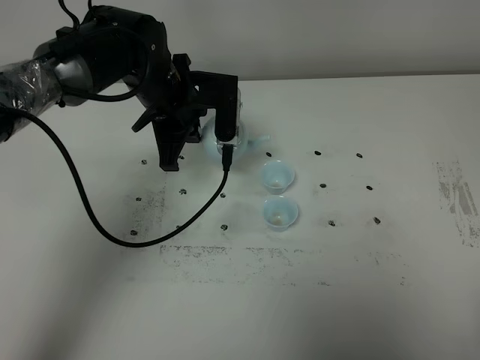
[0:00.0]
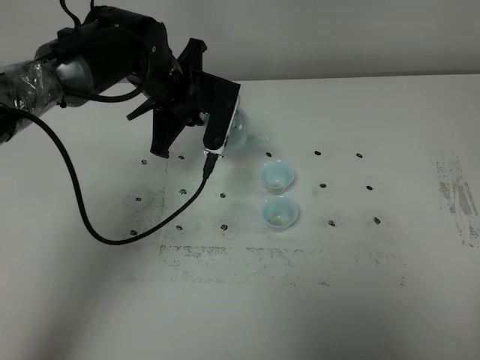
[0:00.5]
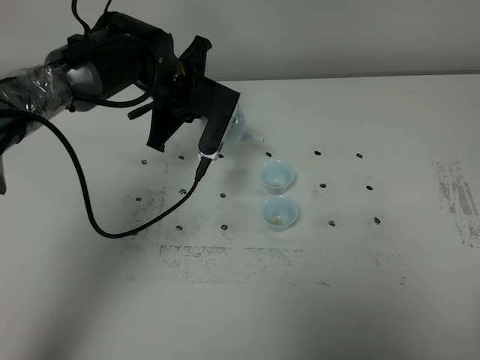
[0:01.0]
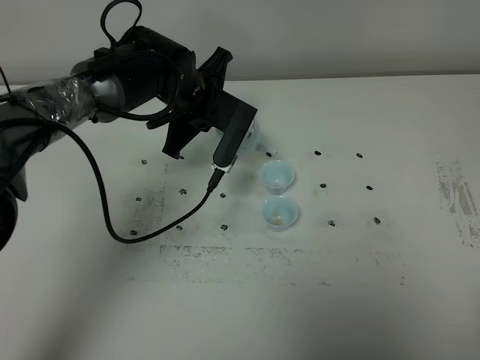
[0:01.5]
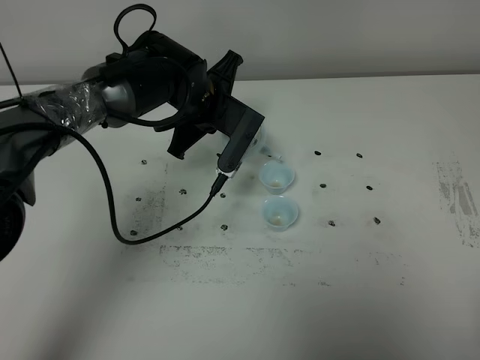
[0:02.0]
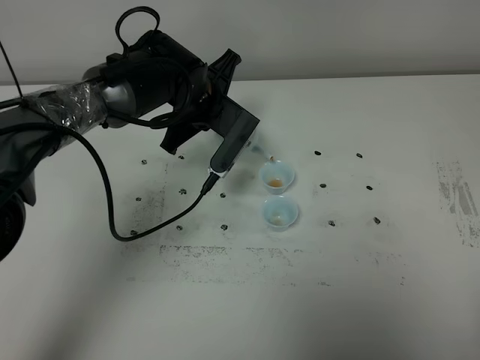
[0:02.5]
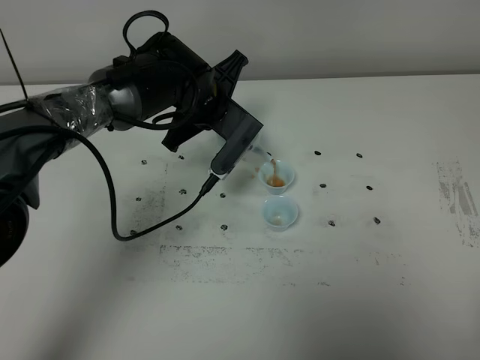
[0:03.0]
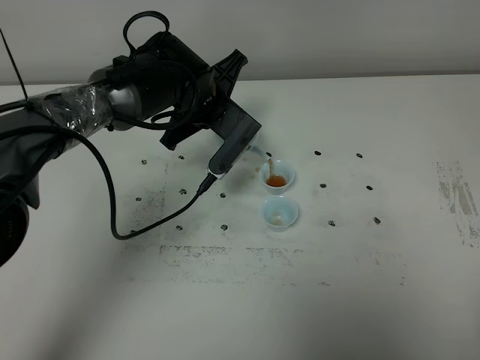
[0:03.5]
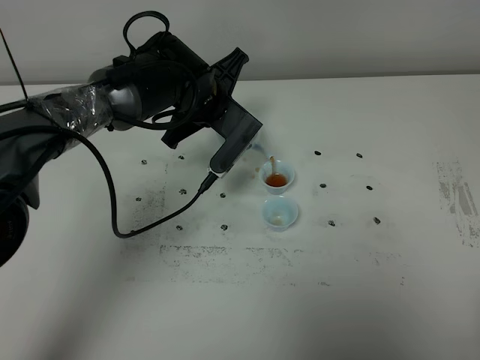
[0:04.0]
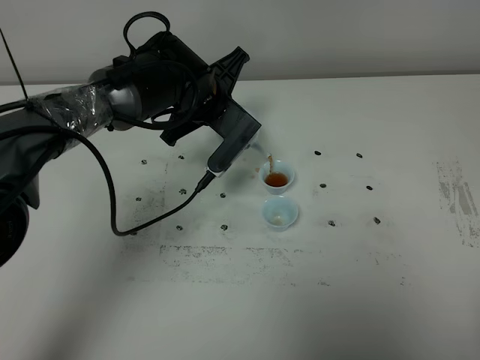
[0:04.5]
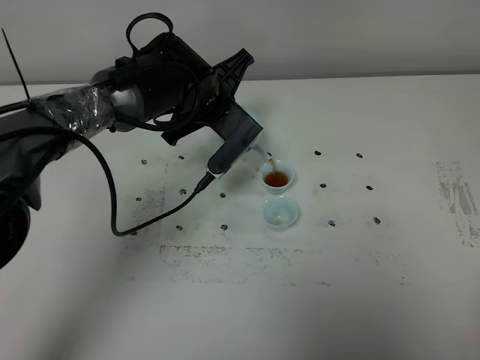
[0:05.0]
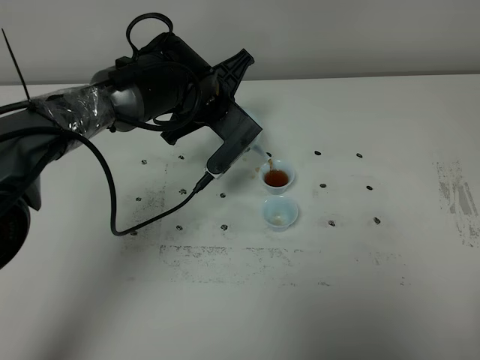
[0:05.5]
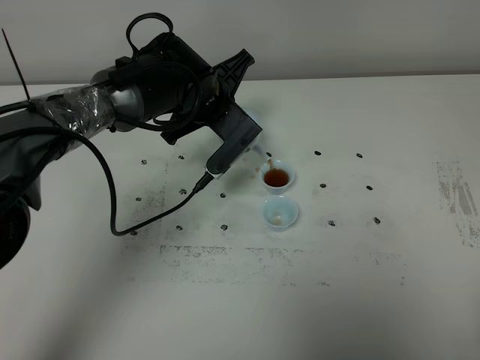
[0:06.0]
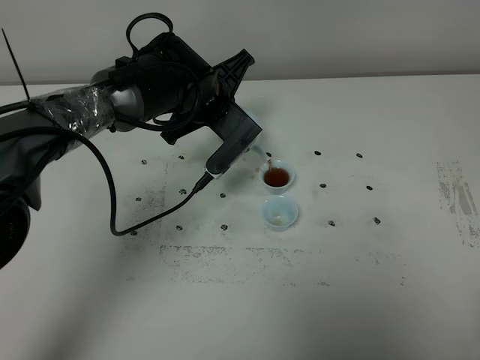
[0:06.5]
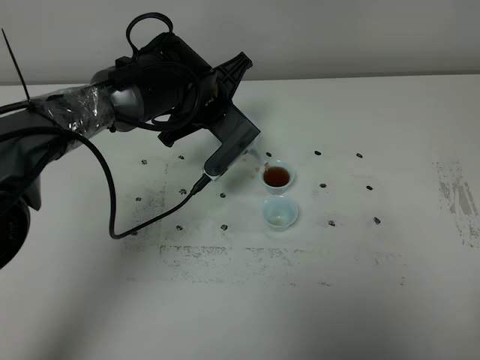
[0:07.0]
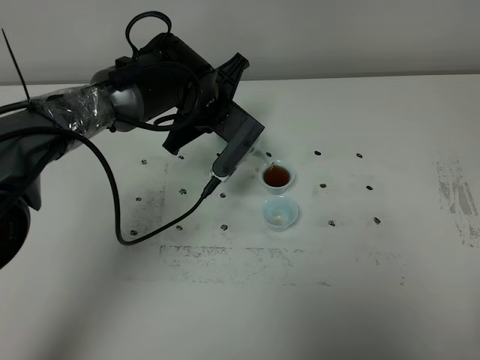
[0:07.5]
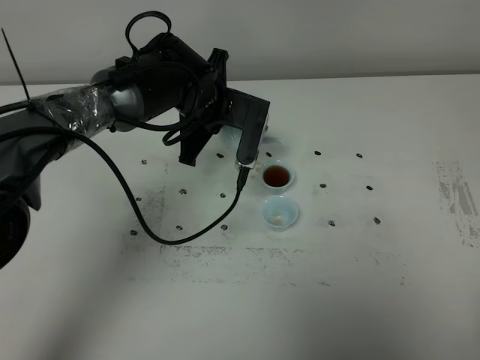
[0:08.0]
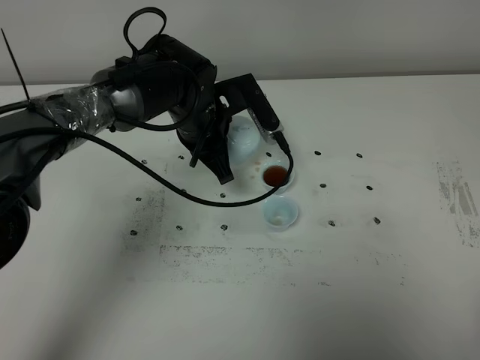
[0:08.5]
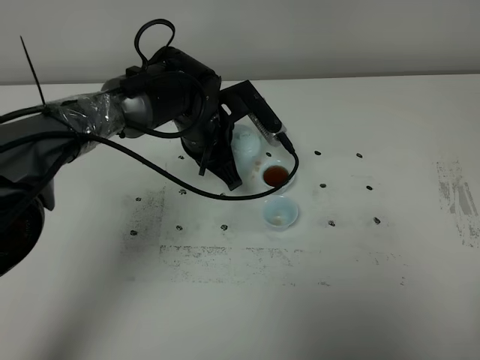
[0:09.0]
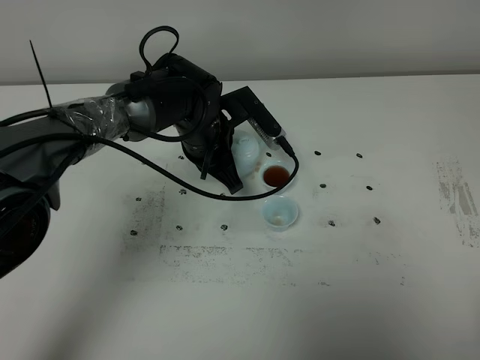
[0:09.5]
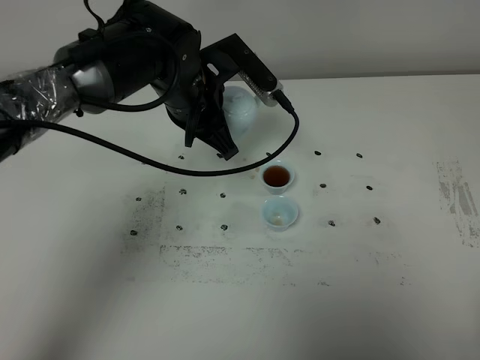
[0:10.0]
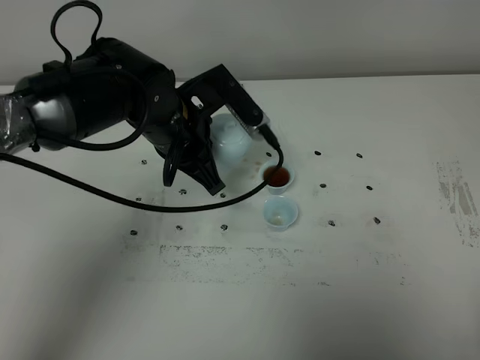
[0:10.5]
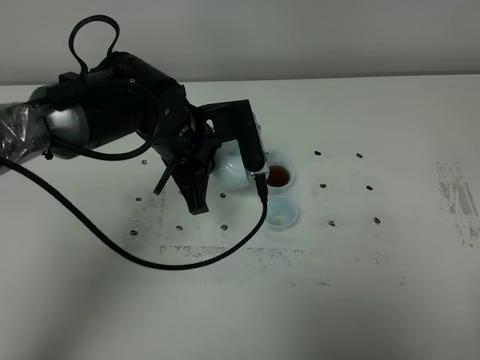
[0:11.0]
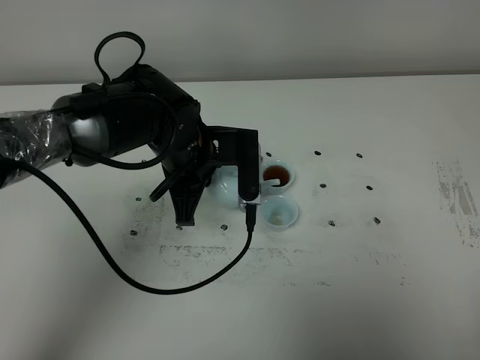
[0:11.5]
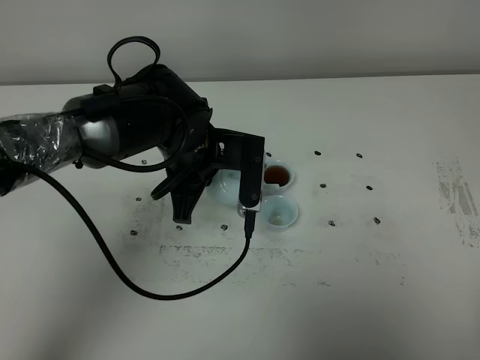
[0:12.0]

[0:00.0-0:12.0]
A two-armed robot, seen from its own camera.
Task of the whole recording: grasp the blue porcelain teapot and pour the tea into the two blue porcelain teacups one by one, put the blue porcelain teapot back in its original place.
0:02.0 to 0:06.0: The grippers make only small movements.
0:08.0 to 0:10.0: The left gripper shifts by some 5 cm.
0:10.0 to 0:12.0: The left gripper ends up some 5 cm from where it was.

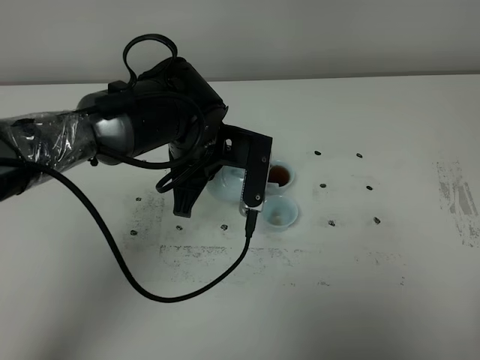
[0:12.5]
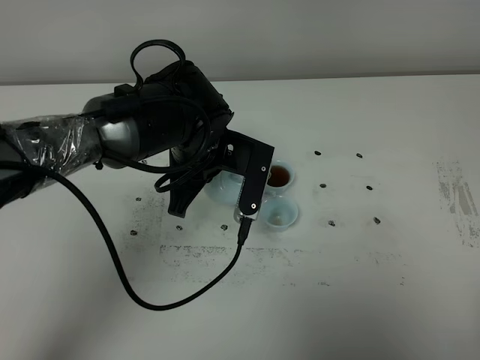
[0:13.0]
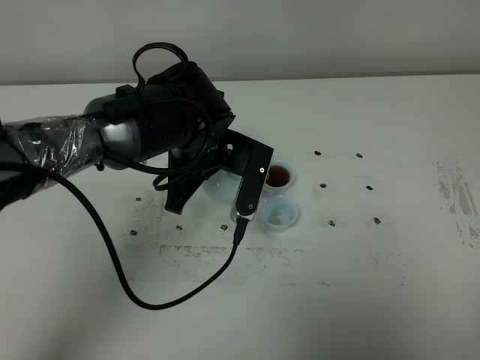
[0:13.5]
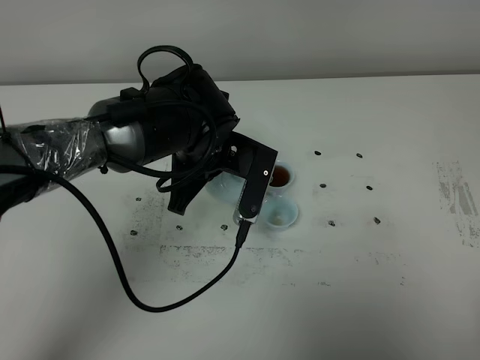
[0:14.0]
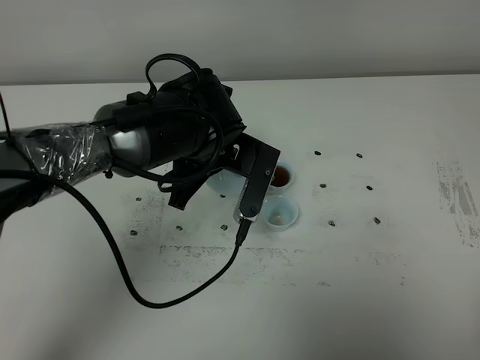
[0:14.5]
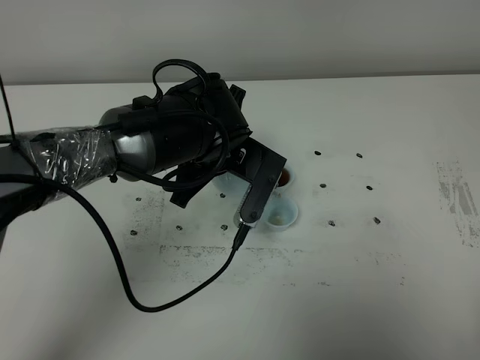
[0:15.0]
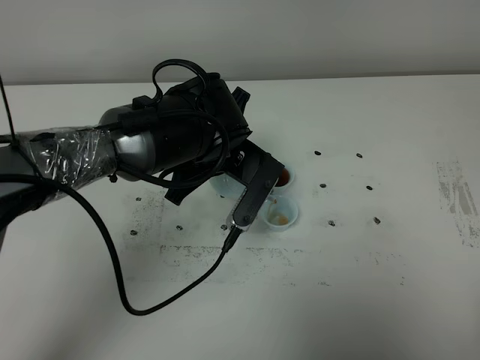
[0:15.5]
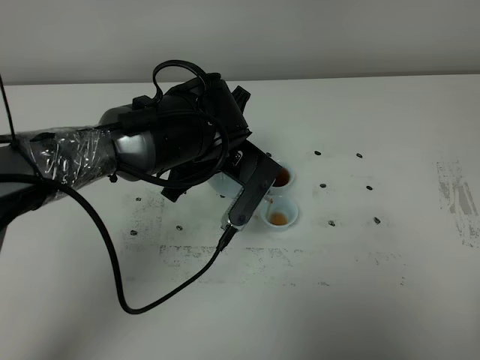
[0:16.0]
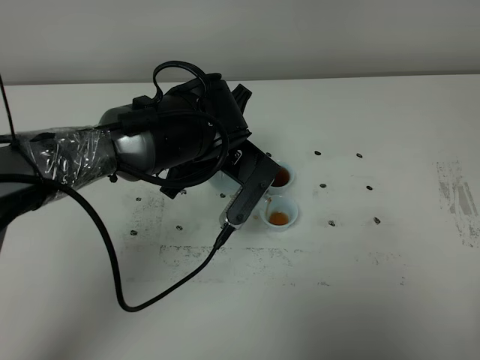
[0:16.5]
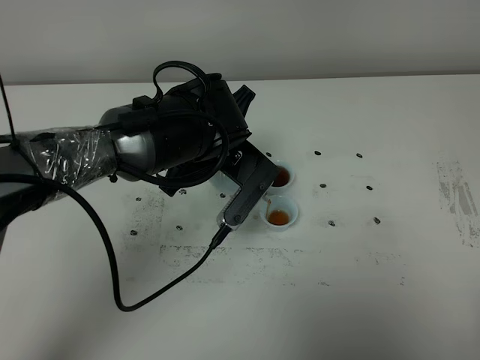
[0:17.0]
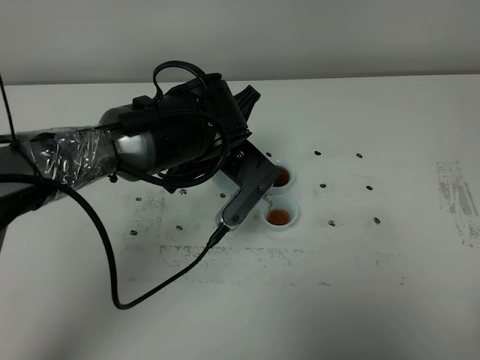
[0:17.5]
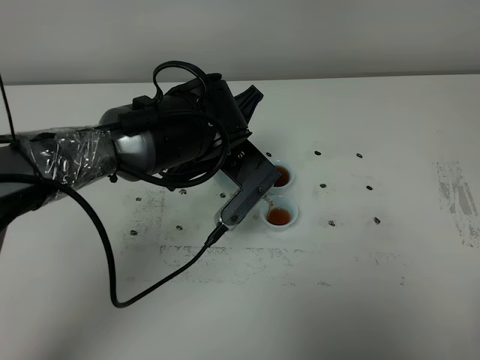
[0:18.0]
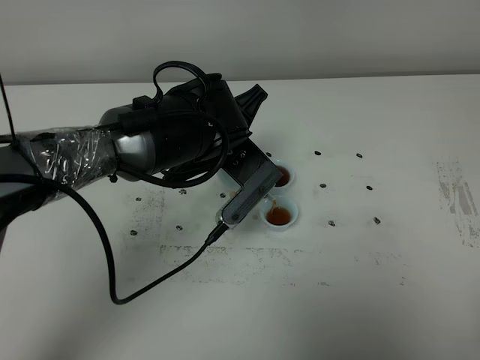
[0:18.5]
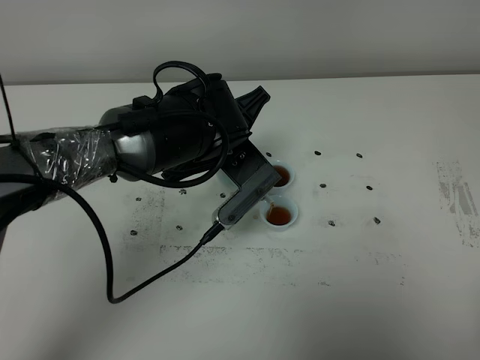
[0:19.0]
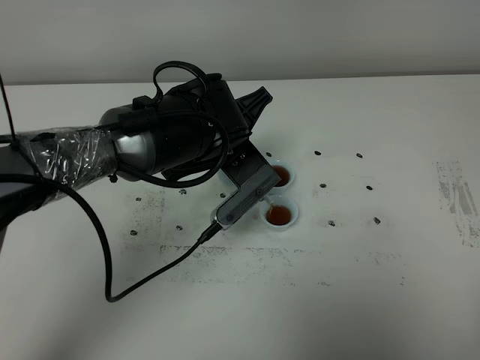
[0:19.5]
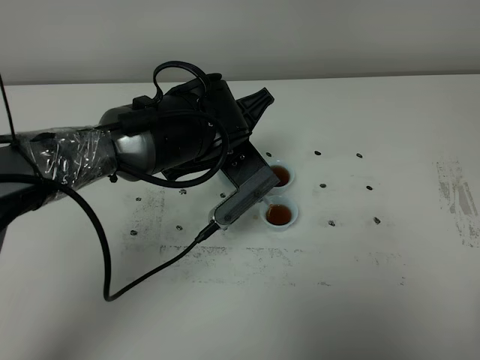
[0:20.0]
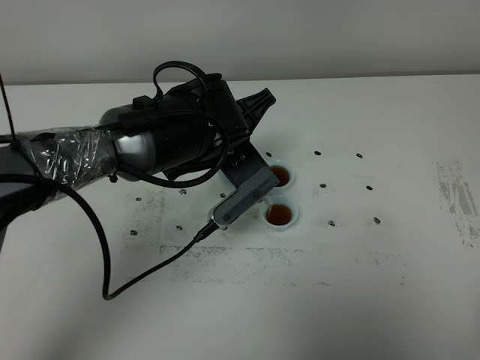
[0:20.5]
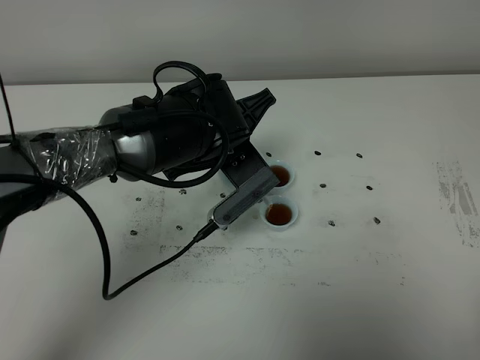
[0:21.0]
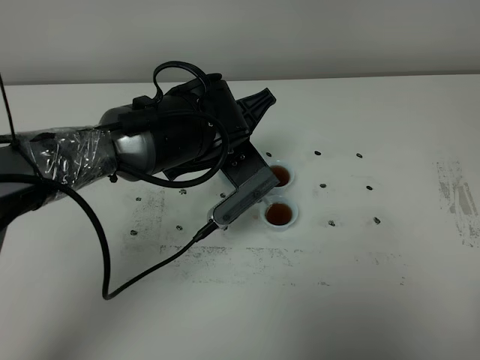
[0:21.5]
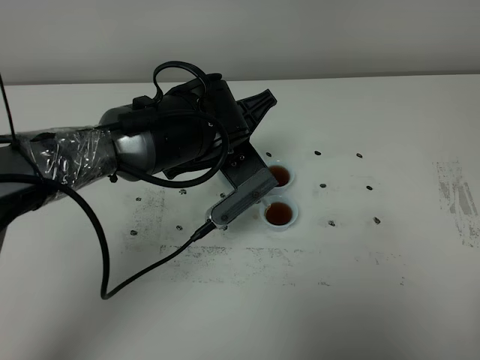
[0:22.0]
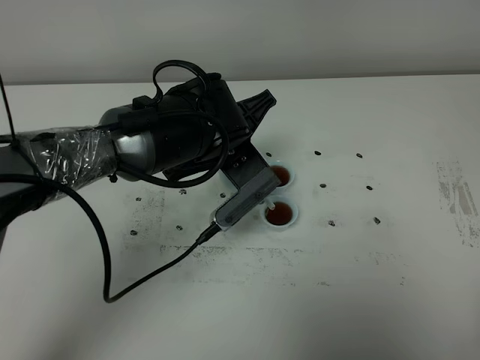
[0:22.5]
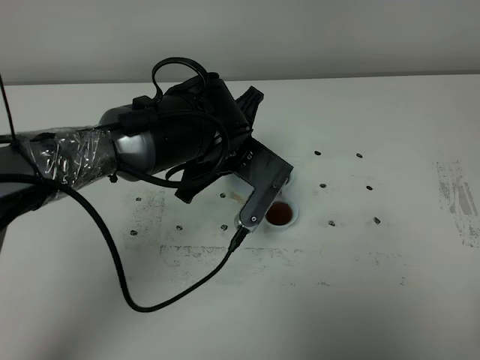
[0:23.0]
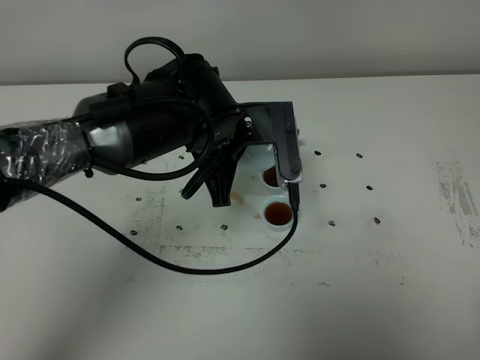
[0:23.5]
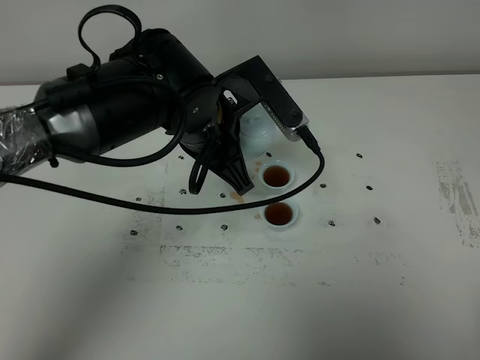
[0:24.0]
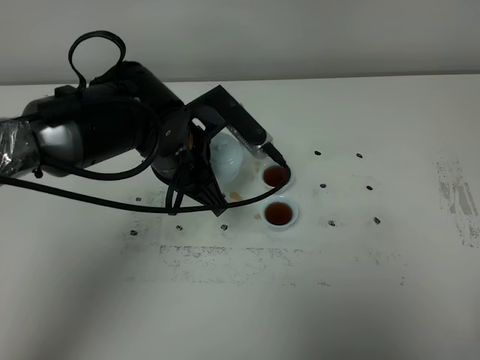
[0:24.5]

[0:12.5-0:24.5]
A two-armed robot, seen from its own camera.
Task of the whole recording: grasp the blue porcelain teapot and pour the tea into the two blue porcelain teacups one by one, put the blue porcelain teapot back in its original place.
Step, 0:12.5 to 0:23.0: Pour tea into the teacup with the left gripper.
0:12.5 to 0:14.5: The grippers stay close to where they were, moving slightly.
0:14.5 to 0:16.5: The grippers stay close to where they were, moving slightly.
0:16.5 to 0:20.5: The grippers stay close to where they were, moving slightly.
0:20.5 to 0:22.5: Neither gripper changes place.
0:22.5 to 0:24.5: The left gripper heads to the left, covering approximately 5 cm.

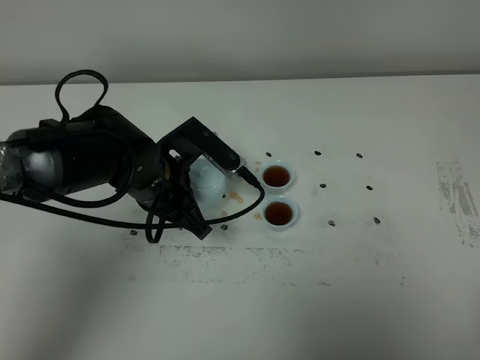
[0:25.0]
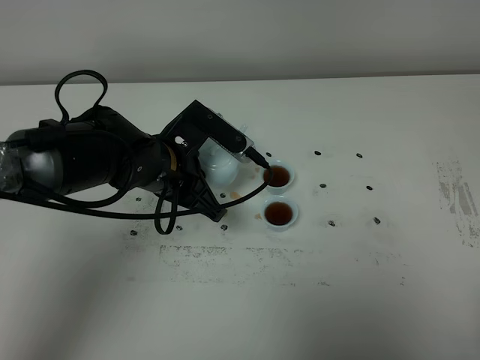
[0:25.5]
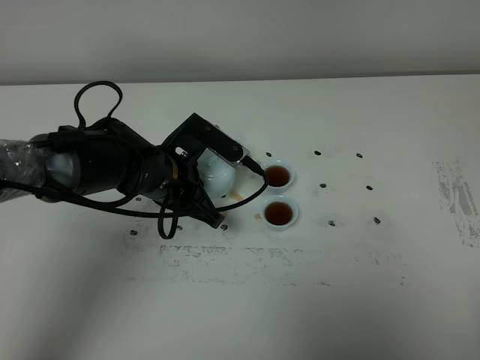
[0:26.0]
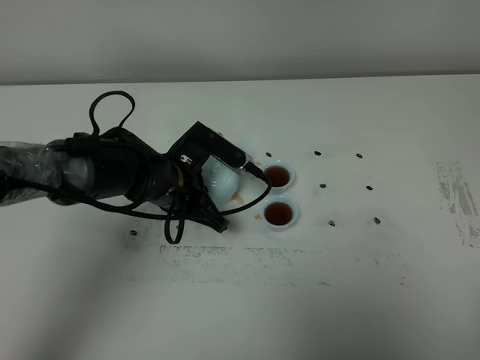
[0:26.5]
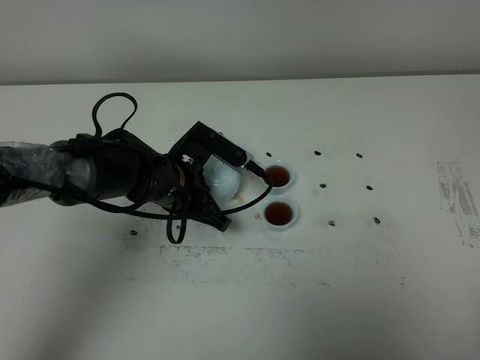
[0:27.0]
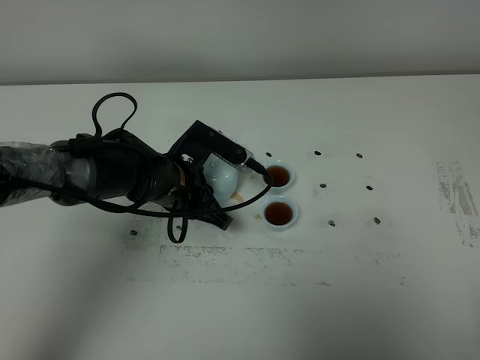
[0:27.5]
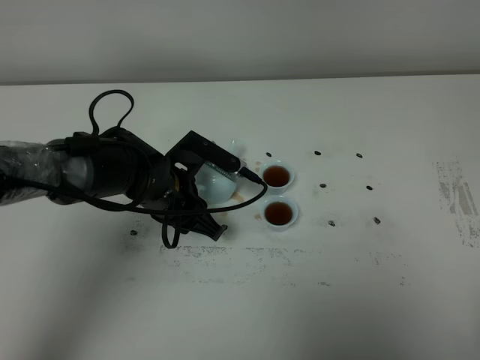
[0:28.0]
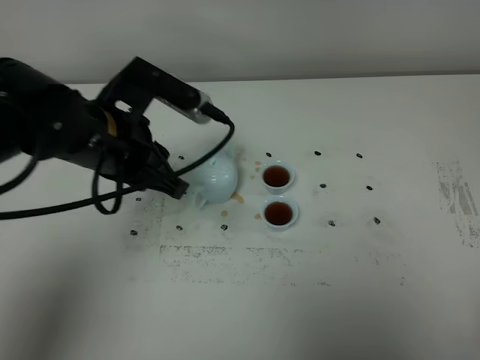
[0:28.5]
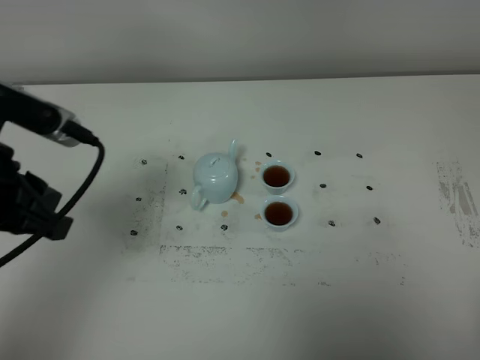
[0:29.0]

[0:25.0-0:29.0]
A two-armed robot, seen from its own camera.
Task of the whole recording: grasp the blue porcelain teapot and pour the tea into the two blue porcelain teacups one by one, put the blue porcelain teapot back in its original place.
0:25.0 to 0:27.0: The left gripper changes place by approximately 5 cm.
0:27.0 to 0:29.0: The left gripper goes approximately 25 cm upward, backward and to the left, and opens.
